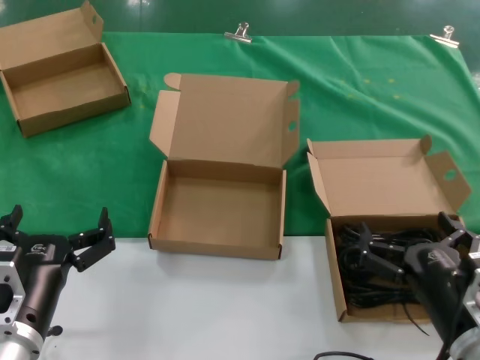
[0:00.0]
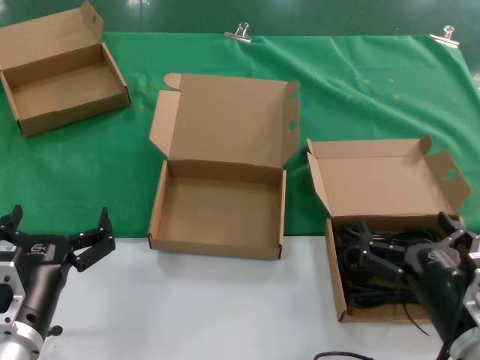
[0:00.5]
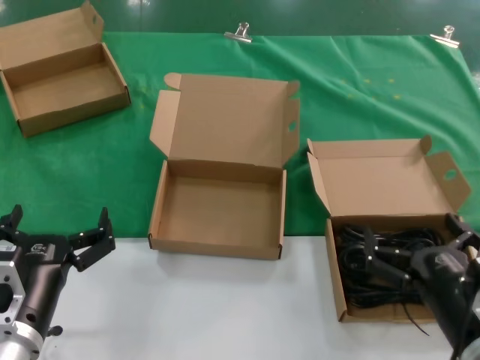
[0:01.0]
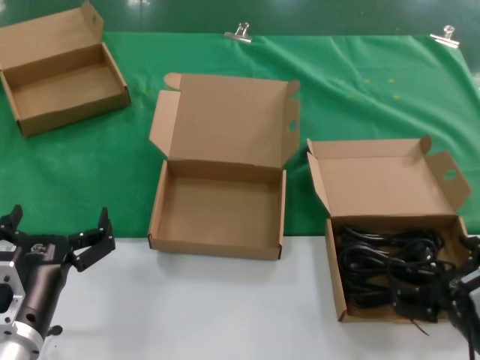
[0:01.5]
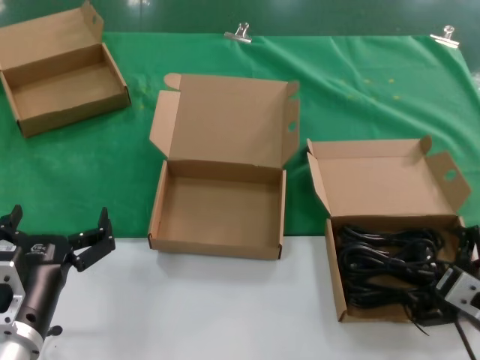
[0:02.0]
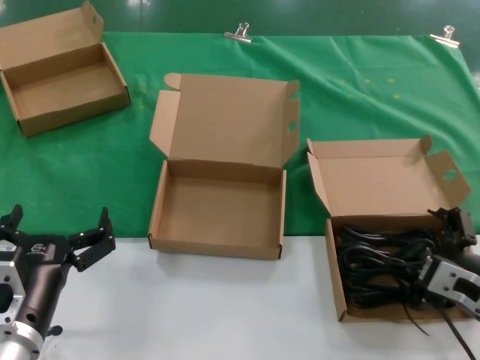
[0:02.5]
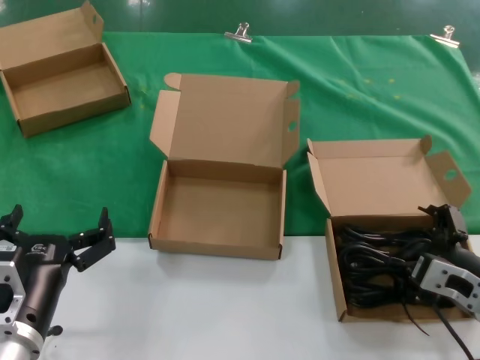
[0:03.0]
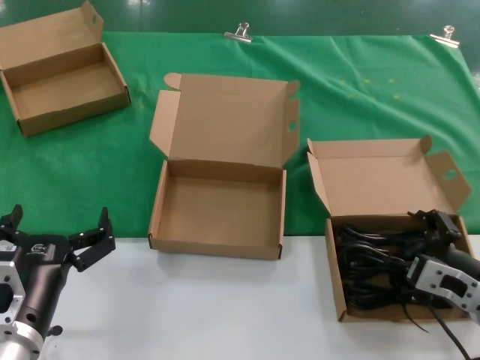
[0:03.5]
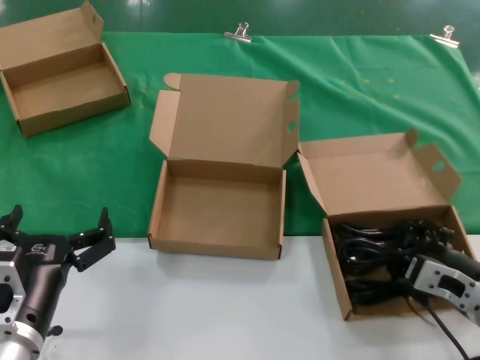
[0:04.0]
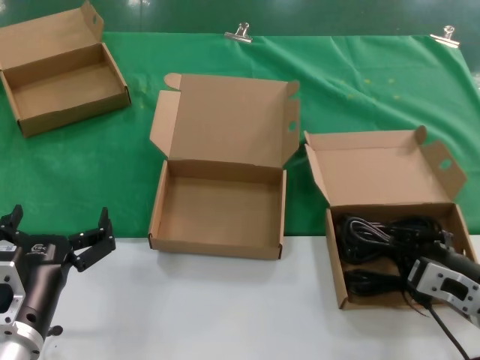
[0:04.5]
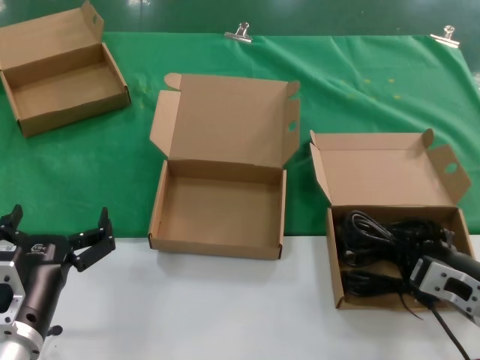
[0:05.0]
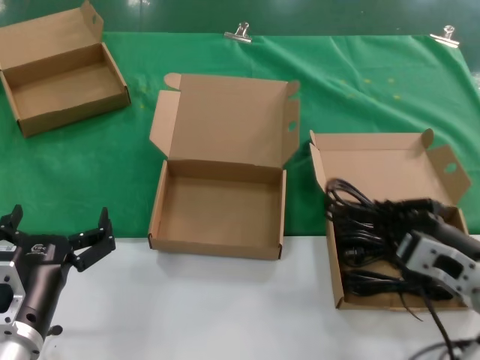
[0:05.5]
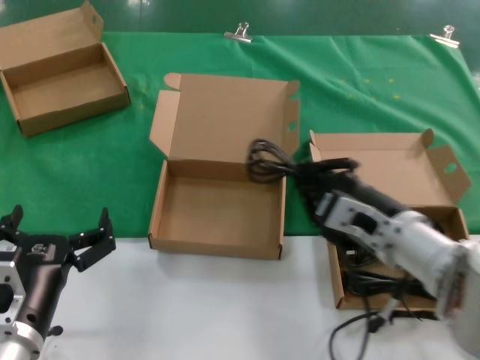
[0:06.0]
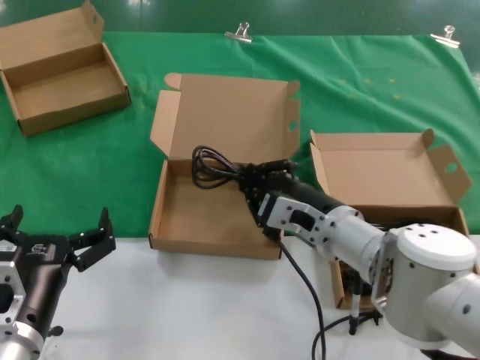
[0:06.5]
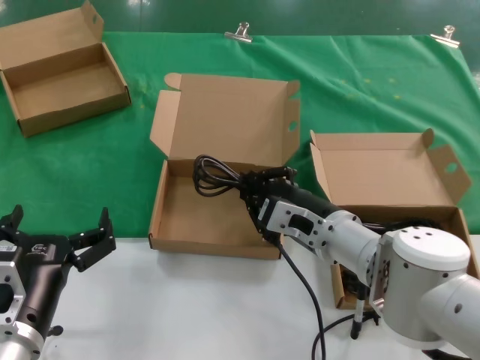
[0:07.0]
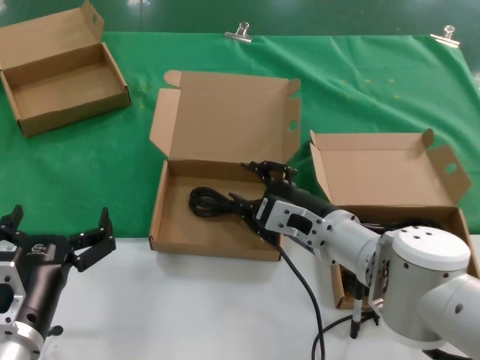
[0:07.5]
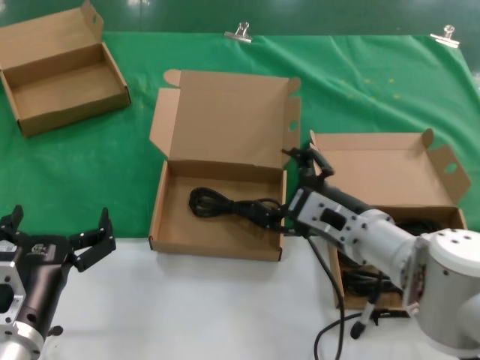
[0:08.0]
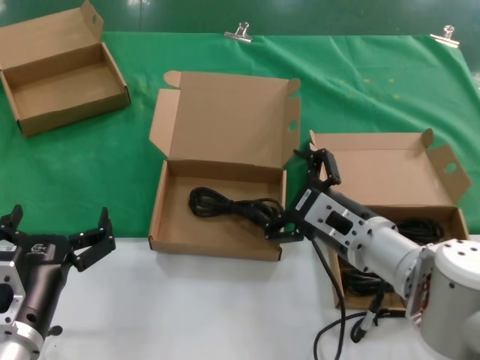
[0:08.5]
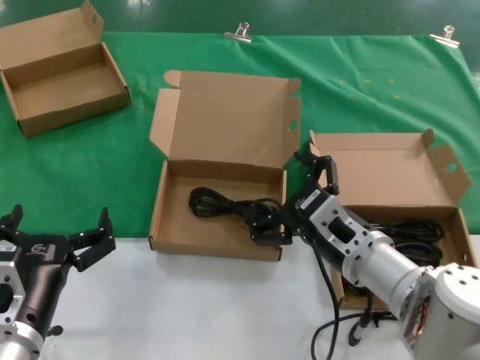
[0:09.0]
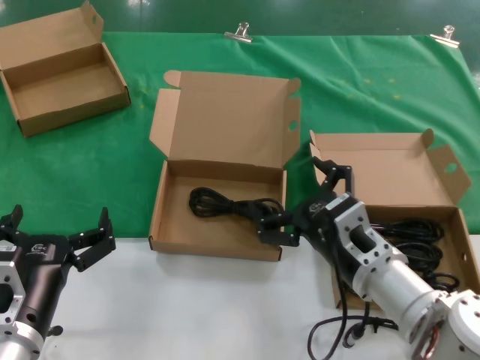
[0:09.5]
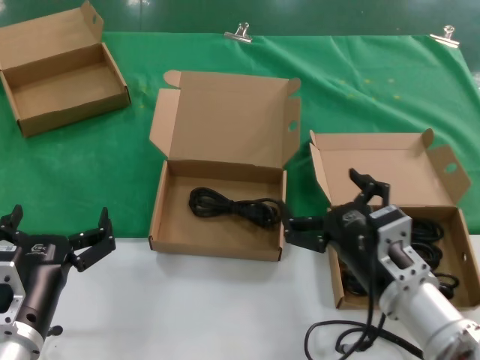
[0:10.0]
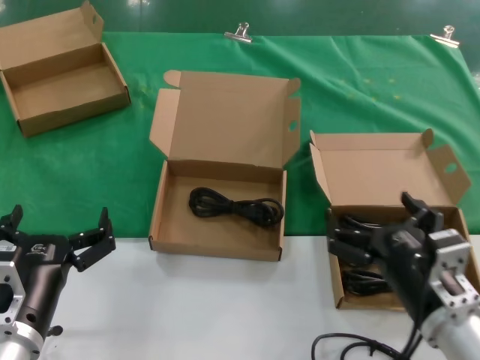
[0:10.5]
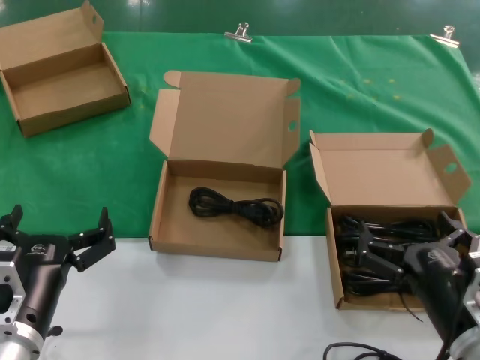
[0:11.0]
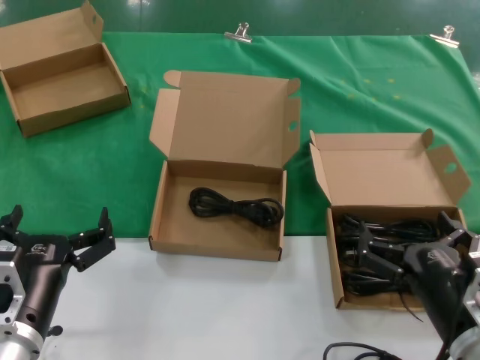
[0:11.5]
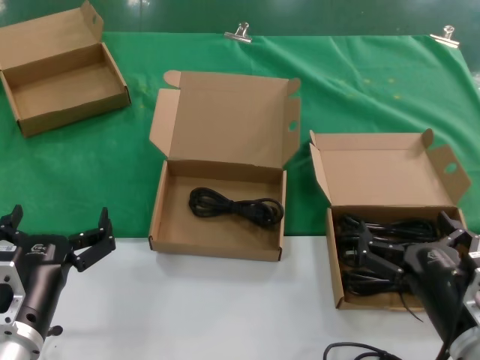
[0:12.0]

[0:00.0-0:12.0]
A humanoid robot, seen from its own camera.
Task of the whole recording: take the parts from the box containing them and put them into an empty box.
Step, 0:00.0 to 0:04.0: Grasp the data cable.
Step, 0:04.5 to 0:07.0: Place the data cable in the another box.
0:00.0 to 0:02.0: The right hand shifts approximately 5 cm to the right.
0:02.0 to 0:04.0: The right hand goes some 5 cm forward.
0:04.0 to 0:06.0: The right hand travels to the left and upward by some 10 cm.
0:08.0 to 0:10.0: The right hand heads backward, covering some 10 cm.
0:10.0 to 0:12.0: The right hand heads to the right and backward, covering approximately 10 cm.

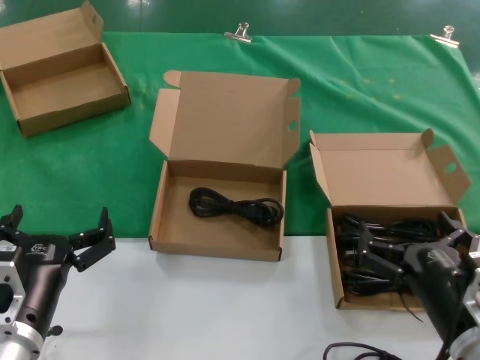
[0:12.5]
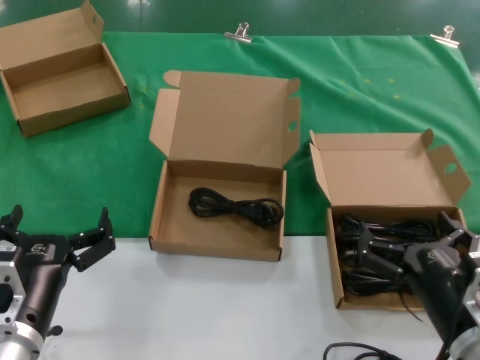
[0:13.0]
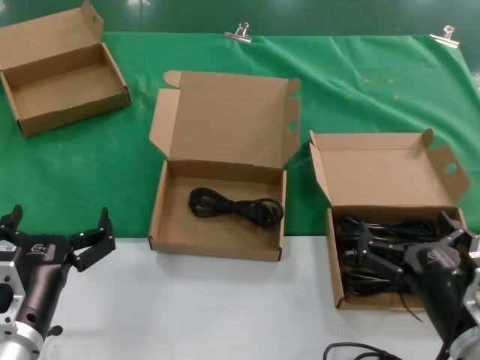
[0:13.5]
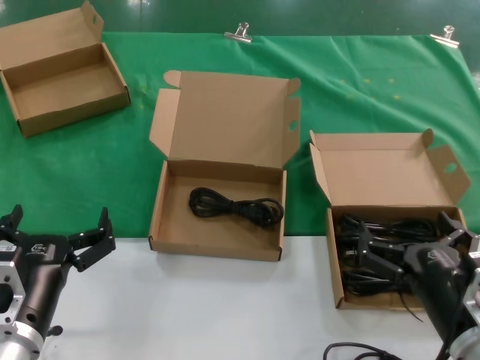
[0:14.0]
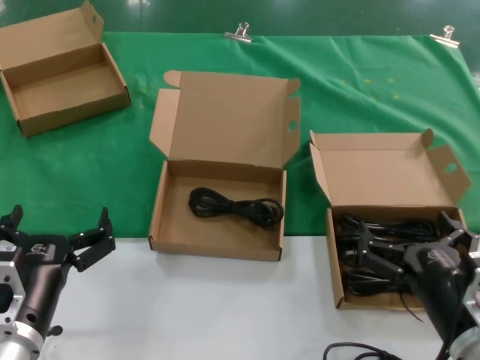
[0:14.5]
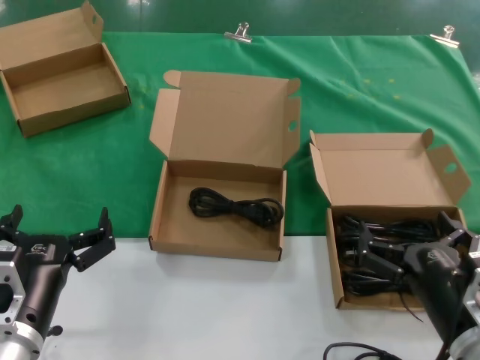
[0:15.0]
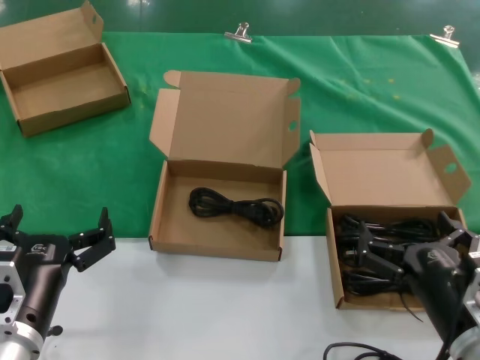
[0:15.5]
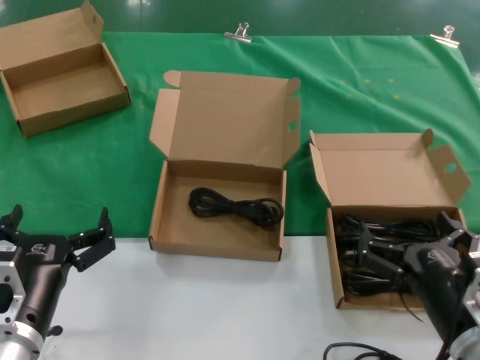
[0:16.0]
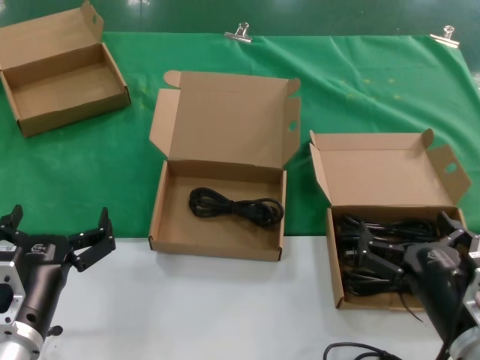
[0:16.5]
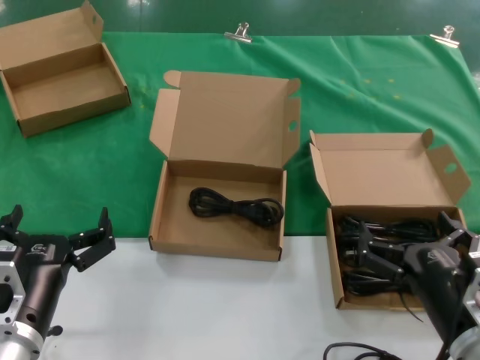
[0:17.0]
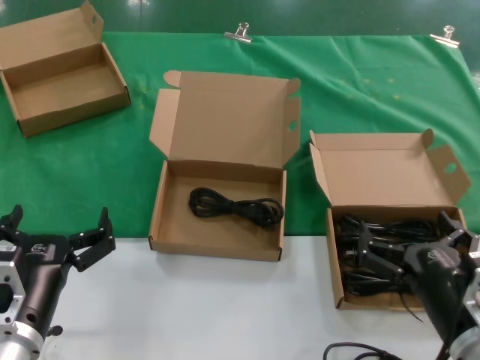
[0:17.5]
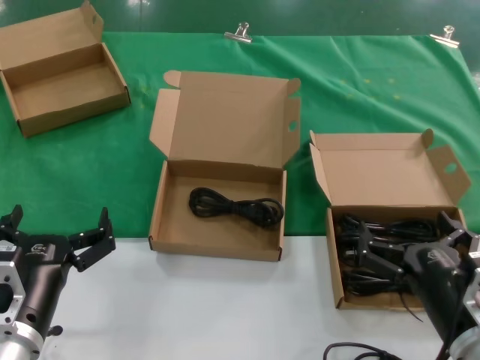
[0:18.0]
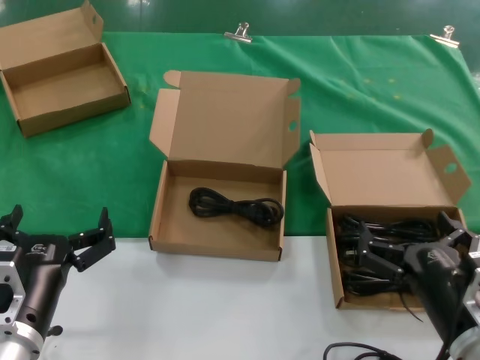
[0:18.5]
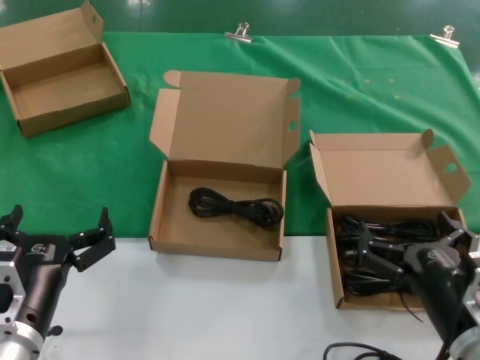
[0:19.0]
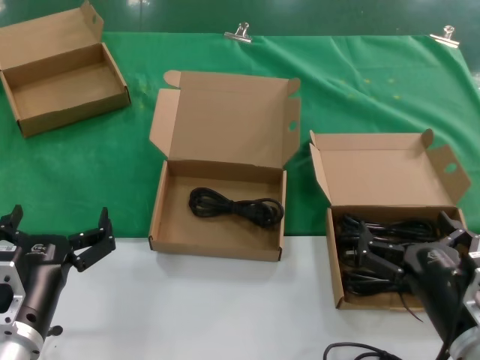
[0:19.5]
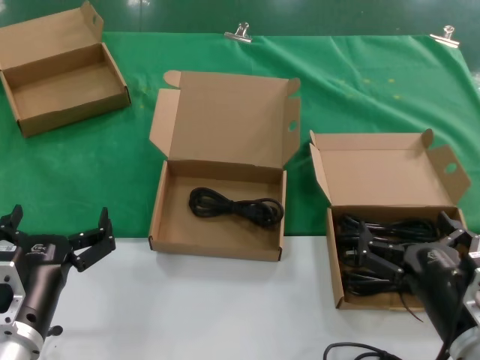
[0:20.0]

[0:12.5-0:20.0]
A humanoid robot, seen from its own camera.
Task of the whole recording: take the parts from the box containing them and put them into an empty box.
0:12.5 to 0:20.0: Both hands stay put.

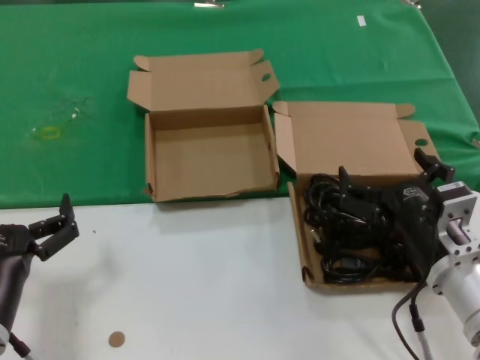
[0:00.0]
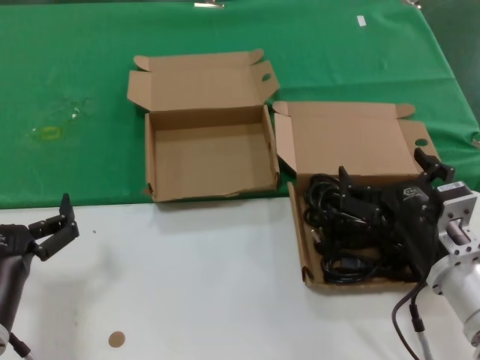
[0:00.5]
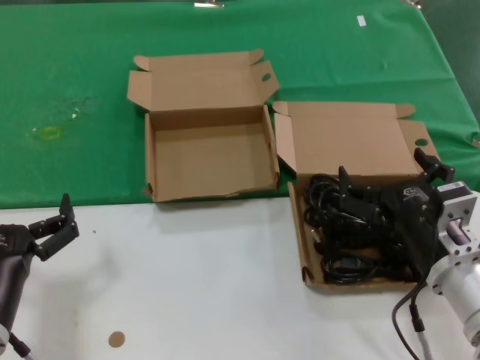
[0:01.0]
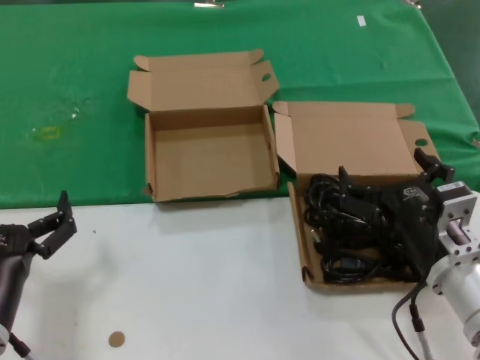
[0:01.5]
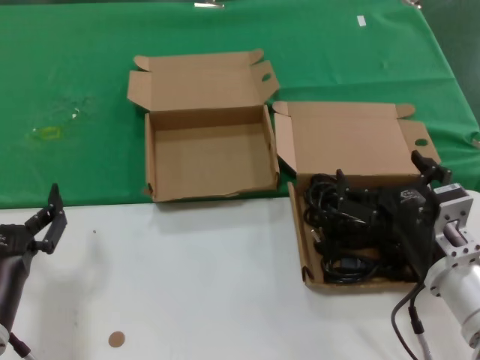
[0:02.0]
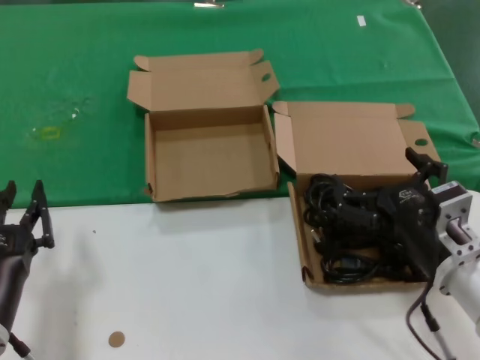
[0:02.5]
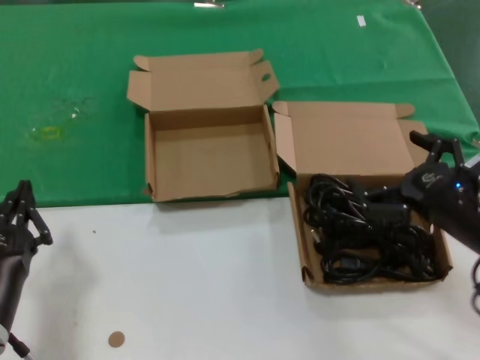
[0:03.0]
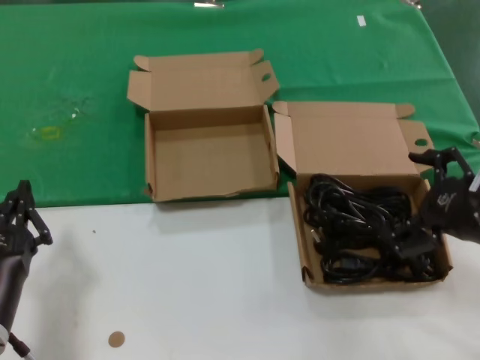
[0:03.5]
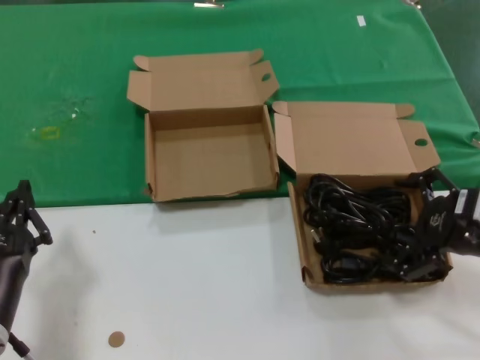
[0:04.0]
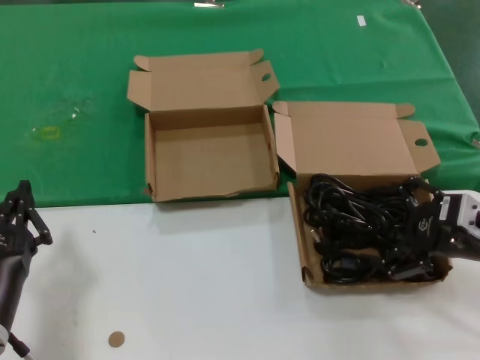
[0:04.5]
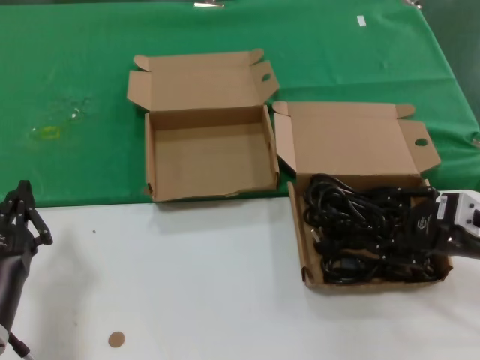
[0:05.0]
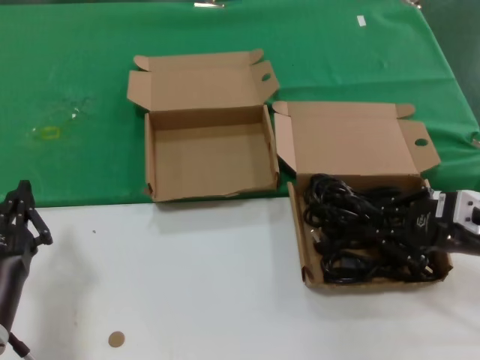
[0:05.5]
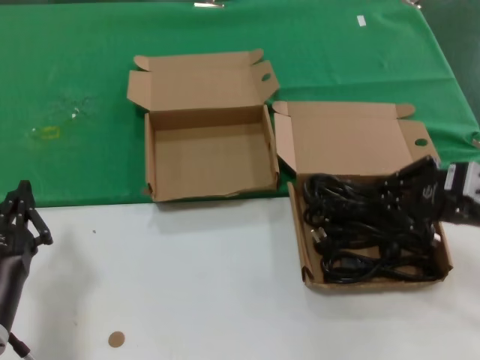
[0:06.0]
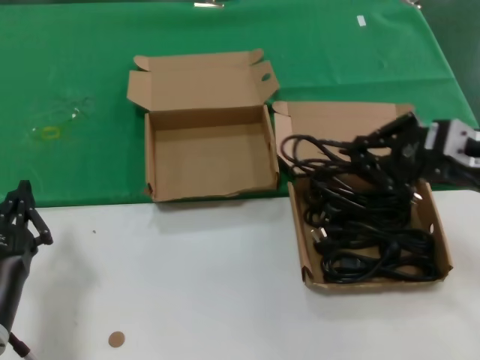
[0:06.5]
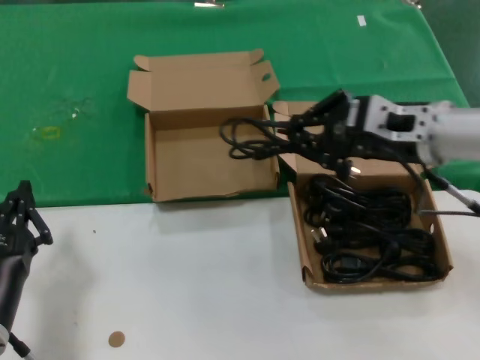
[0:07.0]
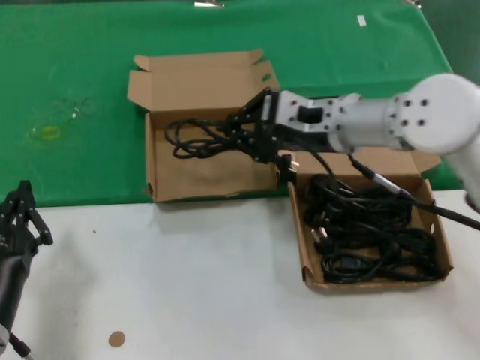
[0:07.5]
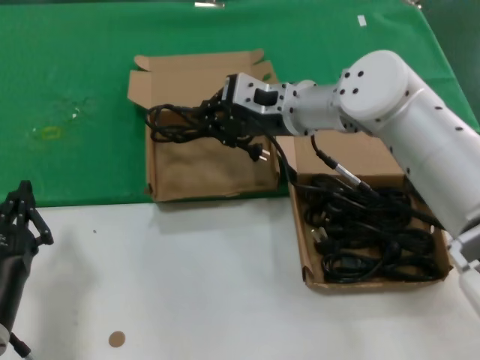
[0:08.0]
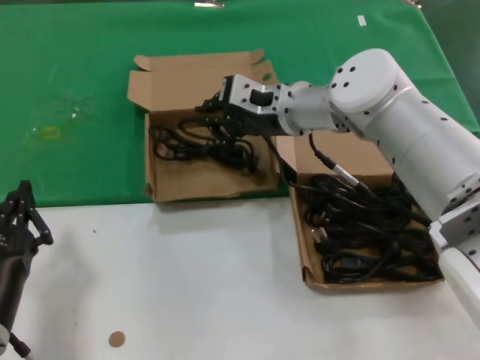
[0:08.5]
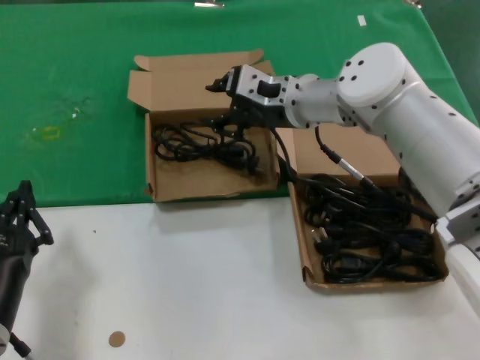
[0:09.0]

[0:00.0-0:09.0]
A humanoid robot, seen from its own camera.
Task of the whole recording: take the parts from the box containing them and put them into an empty box.
Step, 0:00.0 to 0:05.5: Grasp the data cable.
0:00.0 to 0:02.0: Both hands stay about where they are.
0:02.0 to 0:04.5: The right hand shifts some 15 cm to the right and upward.
0:04.5 to 0:07.0: The right hand shifts approximately 15 cm upward, to the left and forward.
0:07.0 to 0:09.0: The right hand is displaced forward and to the left by roughly 20 cm.
